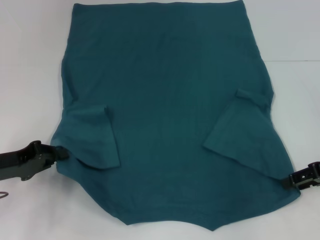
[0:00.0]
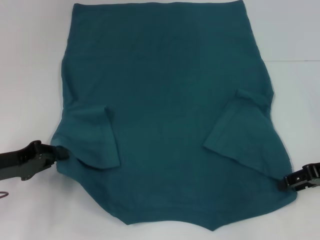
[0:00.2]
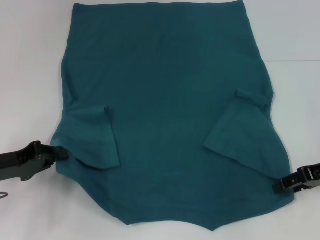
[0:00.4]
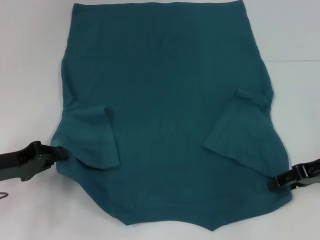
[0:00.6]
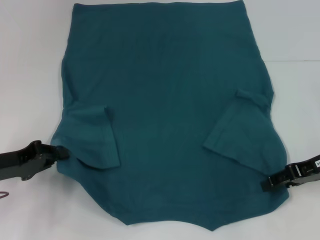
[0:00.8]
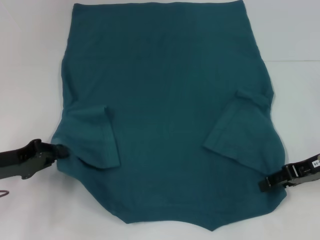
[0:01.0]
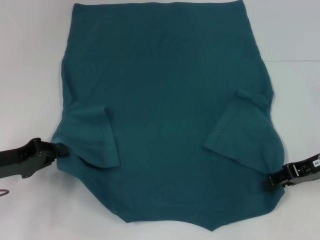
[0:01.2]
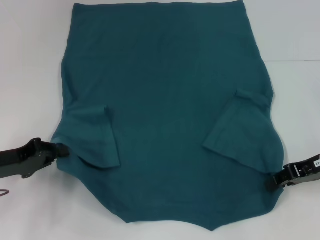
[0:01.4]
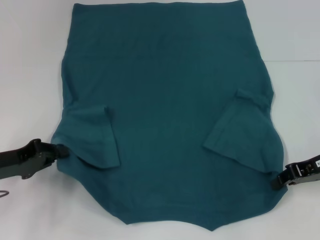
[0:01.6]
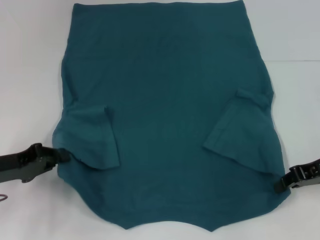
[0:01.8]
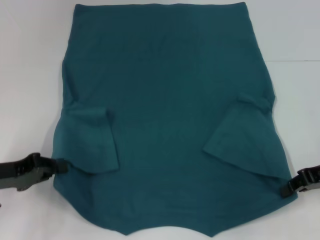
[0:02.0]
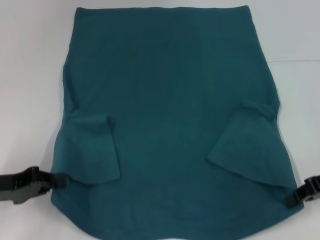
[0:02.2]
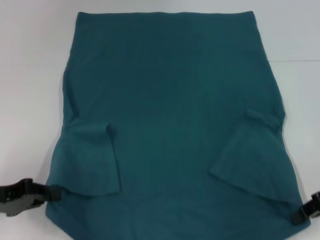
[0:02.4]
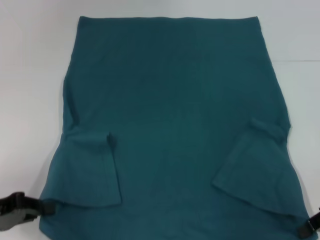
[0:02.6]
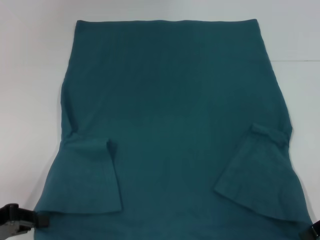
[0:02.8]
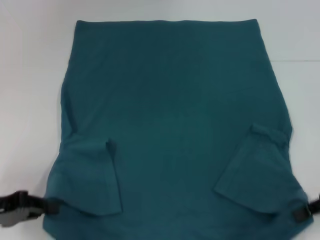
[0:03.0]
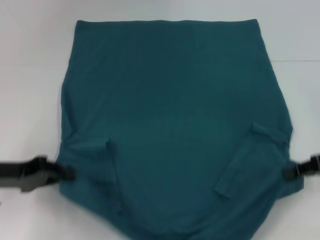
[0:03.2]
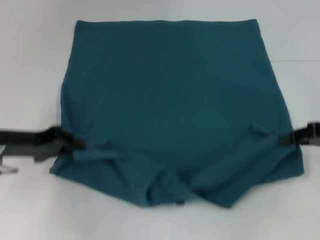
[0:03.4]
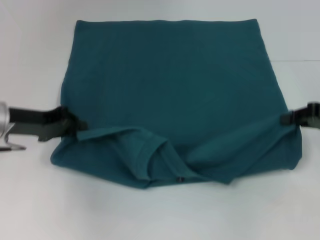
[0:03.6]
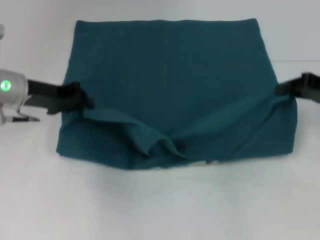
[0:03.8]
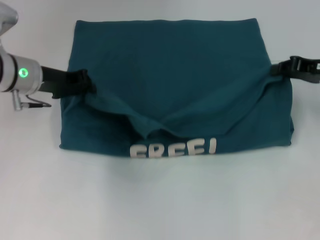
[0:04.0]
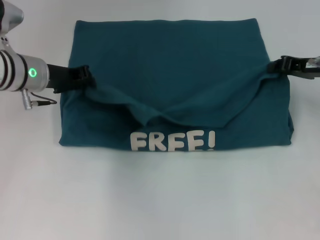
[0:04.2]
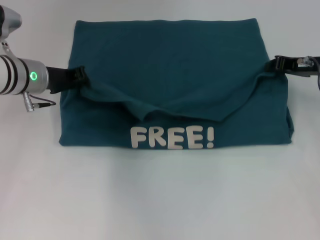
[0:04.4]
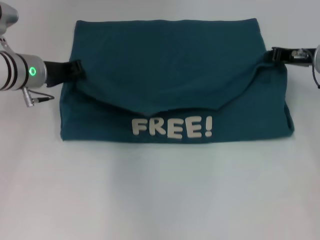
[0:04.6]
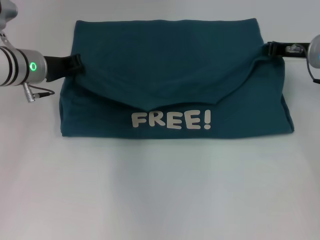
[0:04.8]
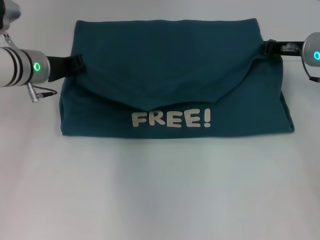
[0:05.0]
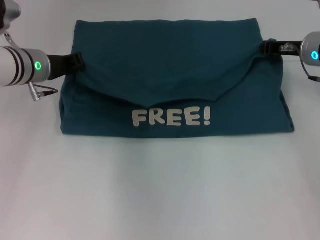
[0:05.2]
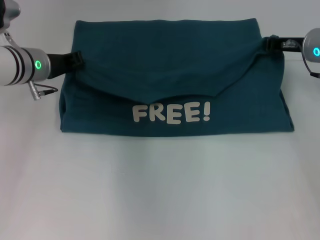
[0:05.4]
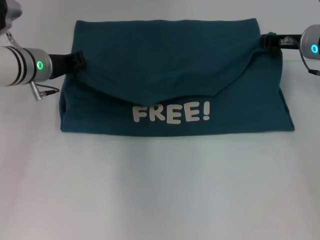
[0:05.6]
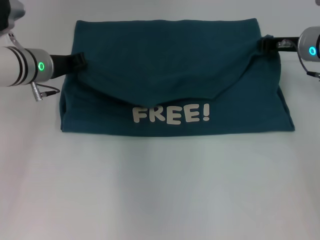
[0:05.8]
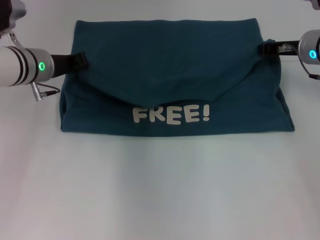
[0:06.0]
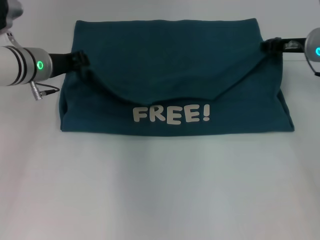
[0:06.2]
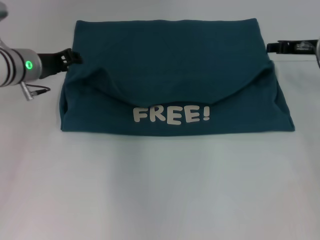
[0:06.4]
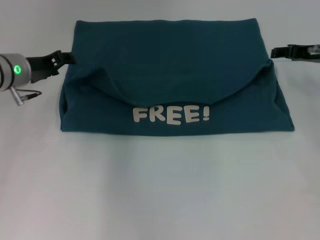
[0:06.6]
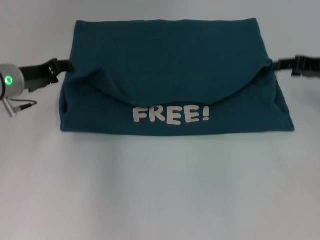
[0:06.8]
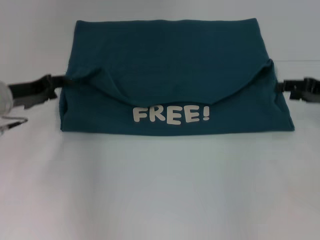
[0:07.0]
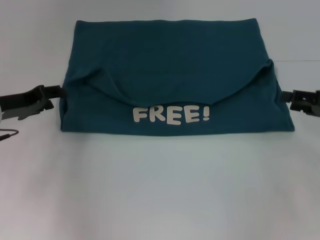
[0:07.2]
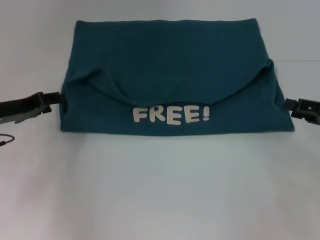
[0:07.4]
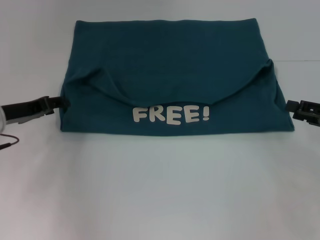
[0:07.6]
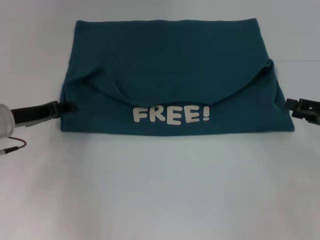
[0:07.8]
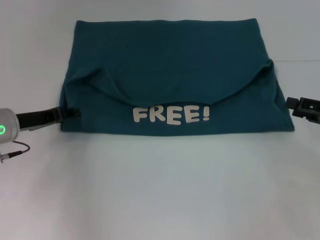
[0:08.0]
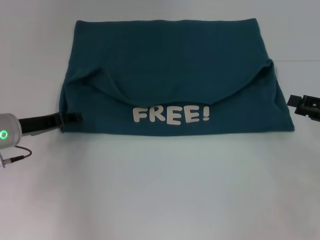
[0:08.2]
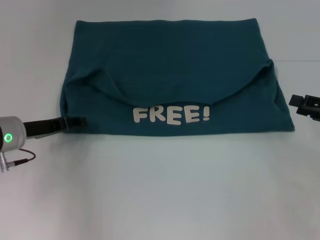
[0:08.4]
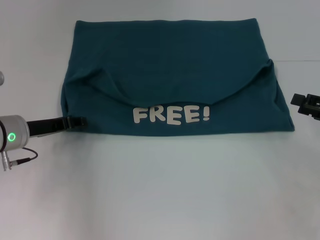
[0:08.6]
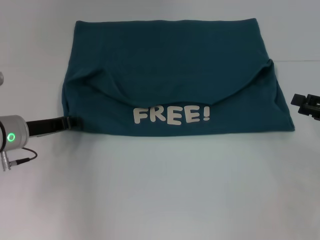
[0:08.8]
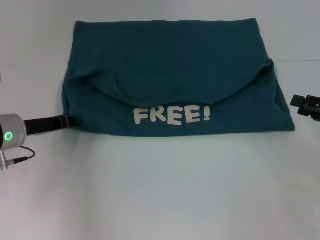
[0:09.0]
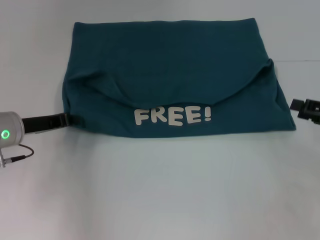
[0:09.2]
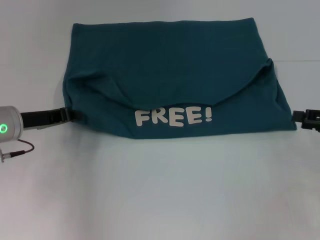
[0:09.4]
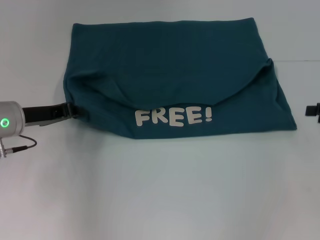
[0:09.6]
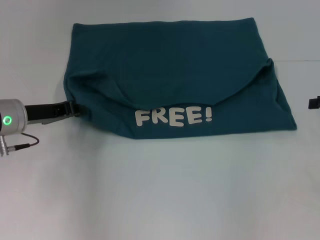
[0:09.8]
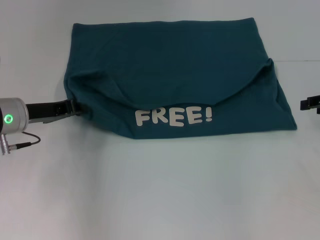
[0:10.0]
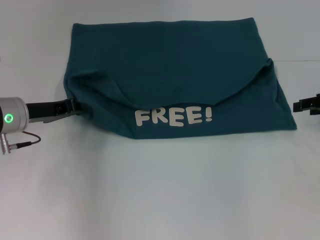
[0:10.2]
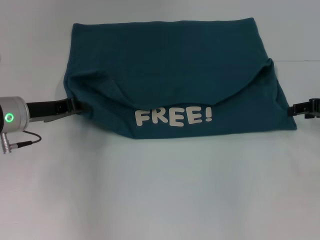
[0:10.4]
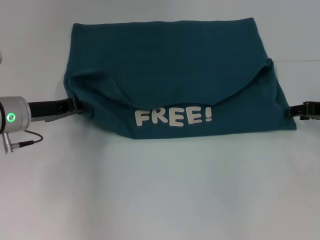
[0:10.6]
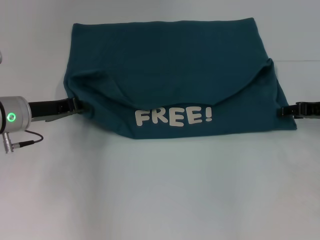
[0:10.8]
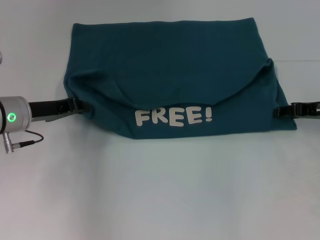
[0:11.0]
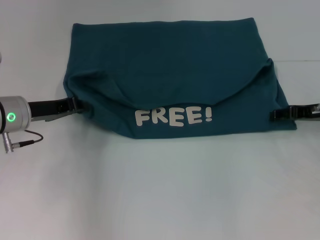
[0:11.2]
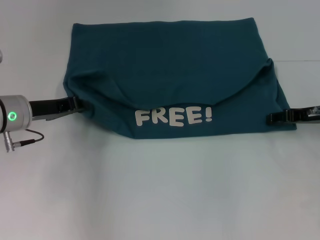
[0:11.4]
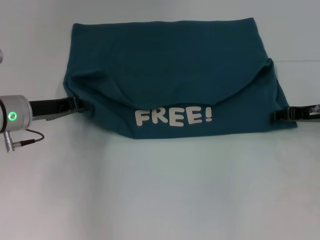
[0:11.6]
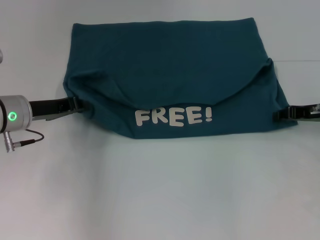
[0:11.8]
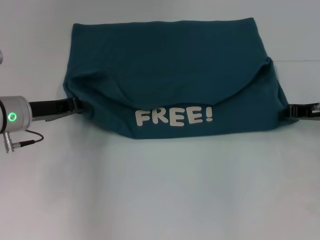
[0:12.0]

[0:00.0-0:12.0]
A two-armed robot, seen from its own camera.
Step, 0:01.6 to 0:06.6: Fold the clothes to the left.
Step, 0:01.6 to 0:06.6: Fold the clothes to the right.
0:00.0 to 0:01.6: The right gripper closes its fingers.
0:01.6 to 0:03.0: The left gripper goes some 5 cm backward. Meanwhile the right gripper shifts by roughly 5 cm.
0:03.0 to 0:04.4: The left gripper shifts roughly 25 cm forward and to the right. The right gripper shifts some 15 cm forward.
0:04.4 to 0:06.0: The grippers move only a little.
0:06.0 to 0:07.6: The left gripper moves backward and to the left, about 10 cm, and opens up; the right gripper goes some 20 cm backward and to the right, and opens its fingers.
0:07.6 to 0:09.0: The left gripper closes.
0:09.0 to 0:10.4: The right gripper travels forward by approximately 5 cm.
0:10.4 to 0:12.0: The right gripper closes up.

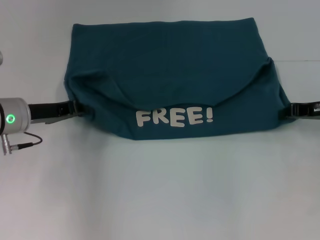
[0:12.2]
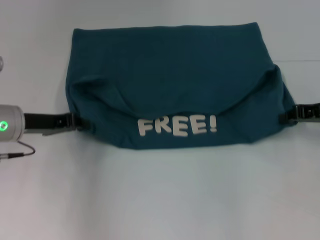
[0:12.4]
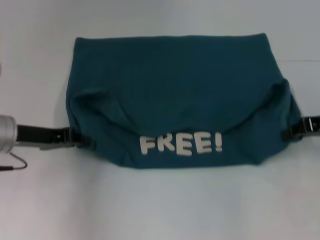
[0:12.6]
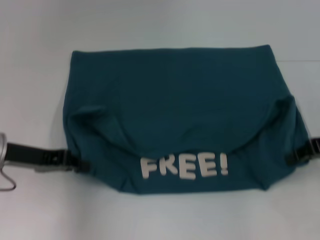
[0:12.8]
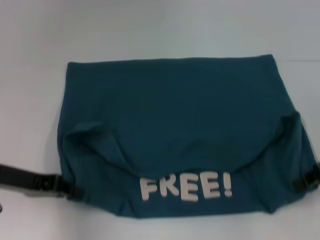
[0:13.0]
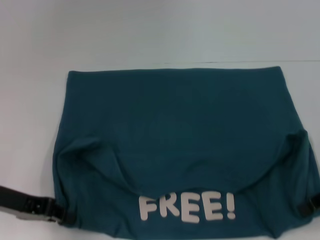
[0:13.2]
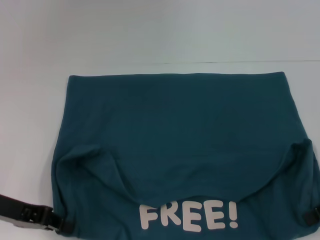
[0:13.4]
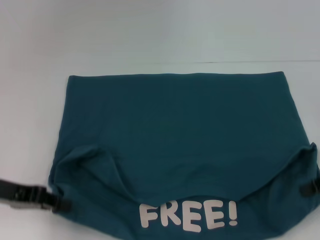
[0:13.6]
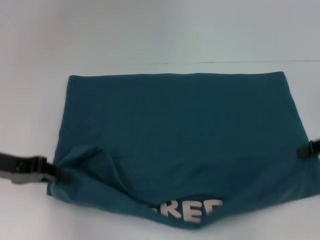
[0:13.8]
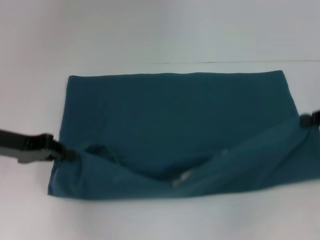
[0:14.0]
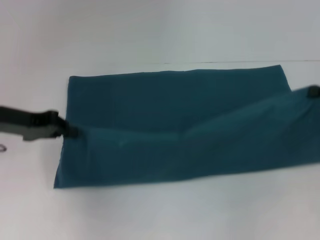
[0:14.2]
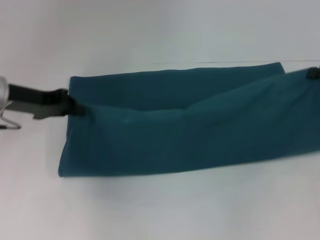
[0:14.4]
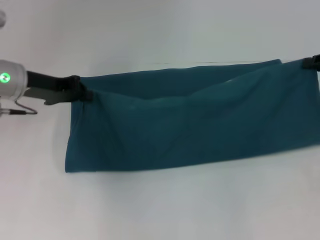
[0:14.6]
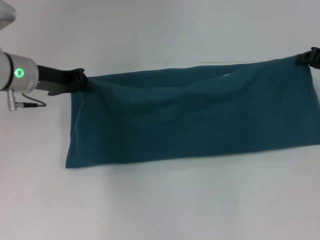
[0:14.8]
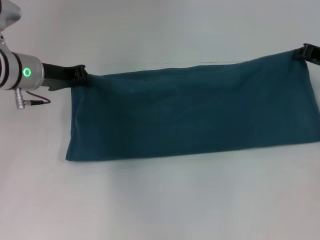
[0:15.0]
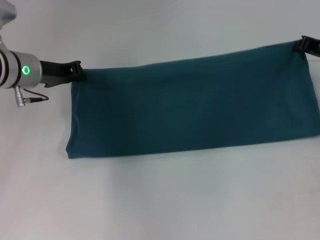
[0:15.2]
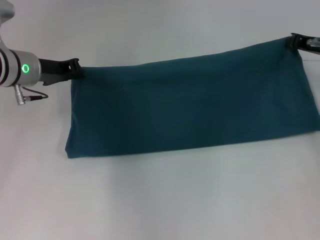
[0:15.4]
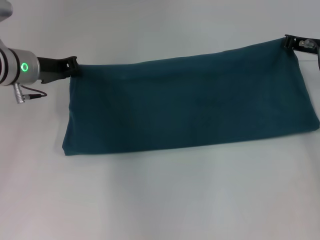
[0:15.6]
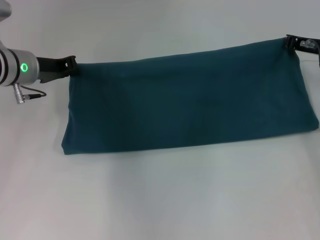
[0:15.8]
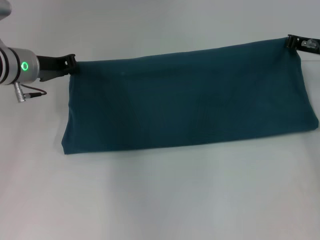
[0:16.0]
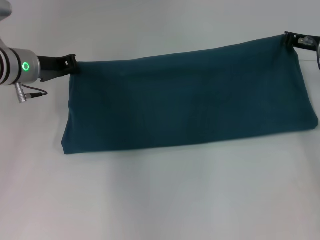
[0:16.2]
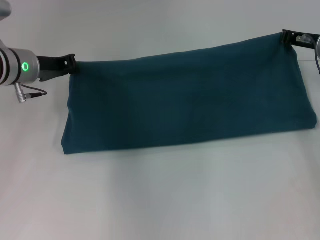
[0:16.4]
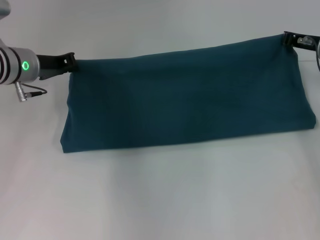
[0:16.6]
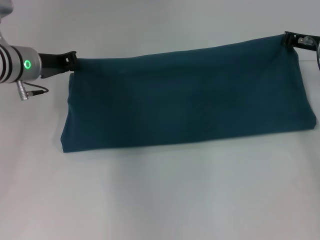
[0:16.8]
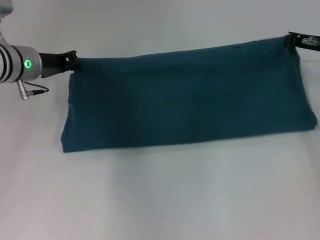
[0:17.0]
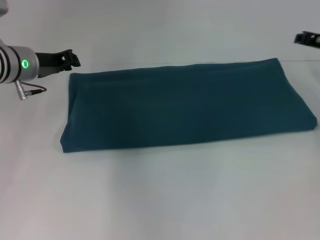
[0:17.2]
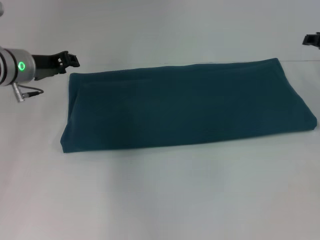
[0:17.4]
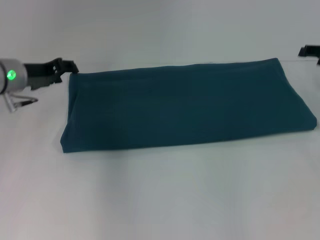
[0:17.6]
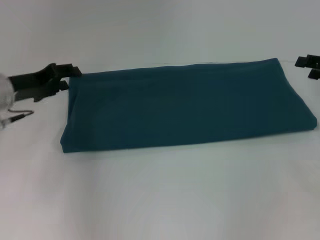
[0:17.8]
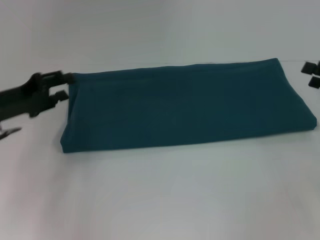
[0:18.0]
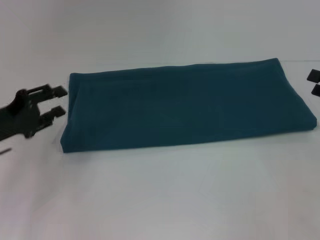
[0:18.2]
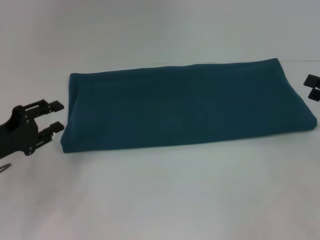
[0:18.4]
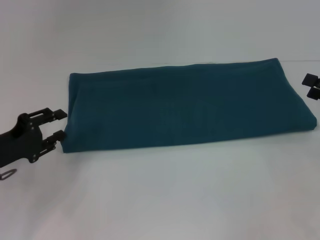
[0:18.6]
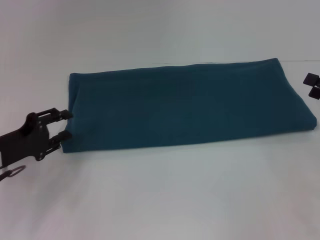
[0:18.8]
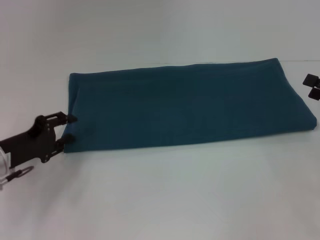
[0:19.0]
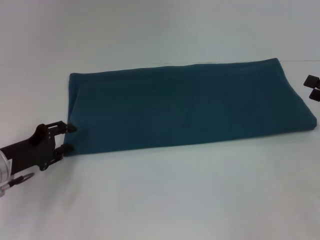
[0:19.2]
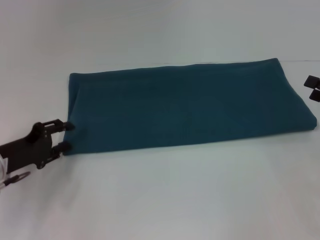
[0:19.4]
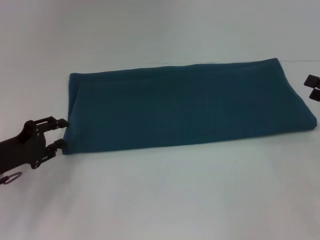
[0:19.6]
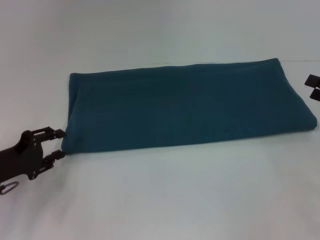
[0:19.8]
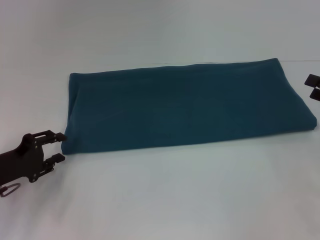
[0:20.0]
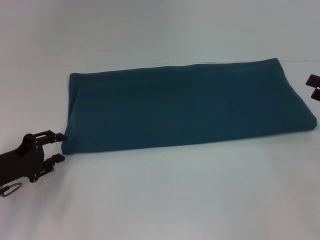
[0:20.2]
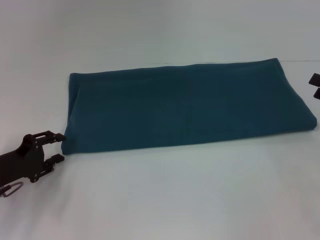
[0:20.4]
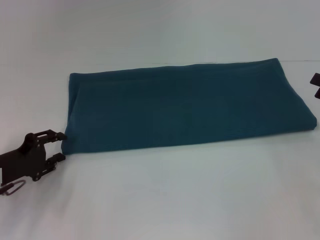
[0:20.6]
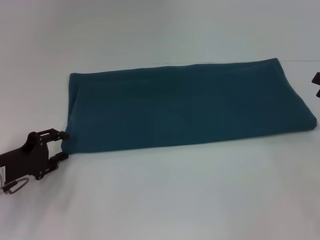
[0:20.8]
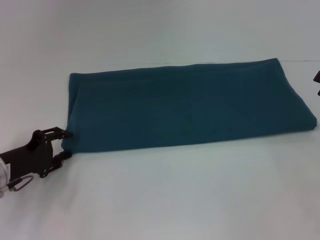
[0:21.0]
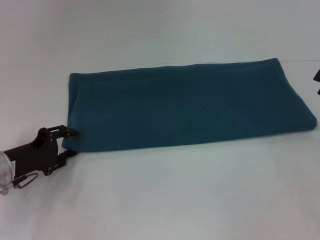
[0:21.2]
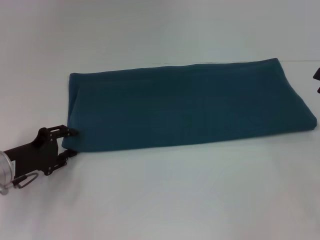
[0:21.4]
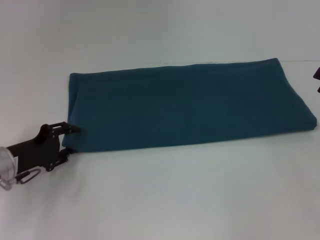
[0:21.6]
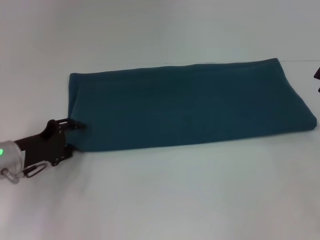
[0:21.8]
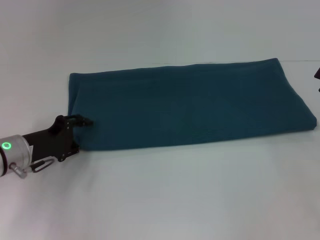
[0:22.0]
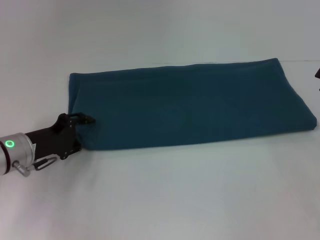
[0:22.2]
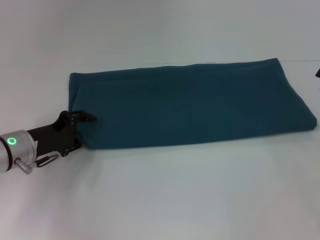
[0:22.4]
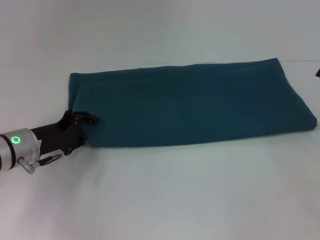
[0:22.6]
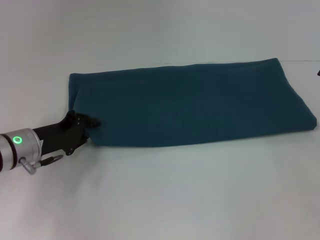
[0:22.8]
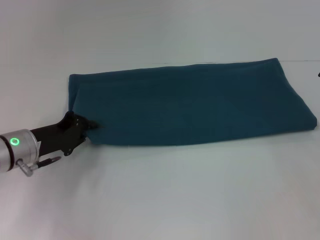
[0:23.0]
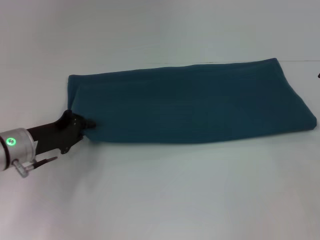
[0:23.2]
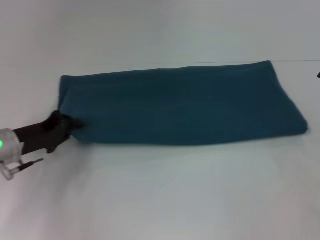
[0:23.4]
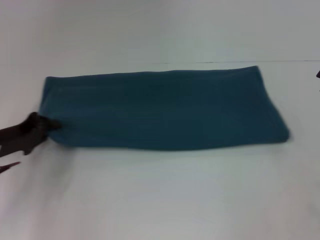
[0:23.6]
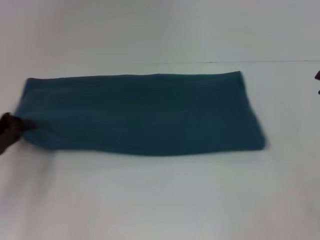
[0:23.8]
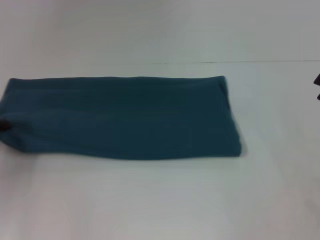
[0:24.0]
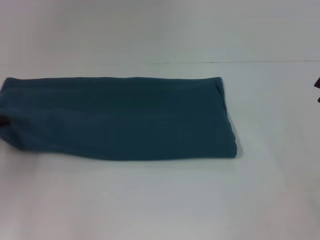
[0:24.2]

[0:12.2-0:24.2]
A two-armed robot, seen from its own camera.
Step, 0:13.4 to 0:17.0: Fold the clothes to the right.
0:12.2 to 0:13.8: Both grippers move backward, some 5 cm.
0:13.8 to 0:15.2: The left gripper shifts roughly 15 cm forward and to the right. The right gripper shifts some 10 cm forward.
0:15.2 to 0:16.6: There are only small adjustments of the grippers.
0:16.6 to 0:18.2: The right gripper moves backward and to the right, about 20 cm, and opens its fingers, while the left gripper moves backward and to the left, about 15 cm, and opens up.
0:18.2 to 0:19.8: The left gripper shifts by approximately 5 cm.
0:19.8 to 0:21.2: There are only small adjustments of the grippers.
0:21.2 to 0:22.6: The left gripper ends up some 5 cm from where it was.
0:22.6 to 0:24.2: The left gripper heads to the left, covering about 10 cm, and closes.
